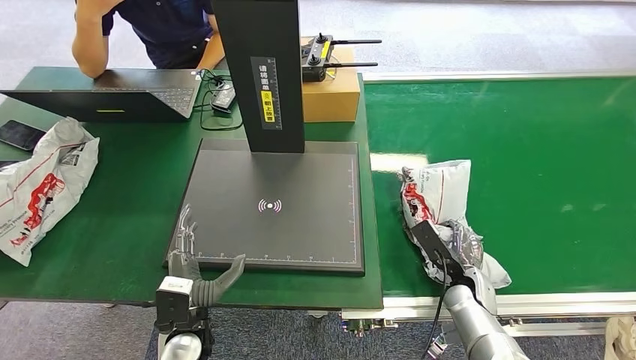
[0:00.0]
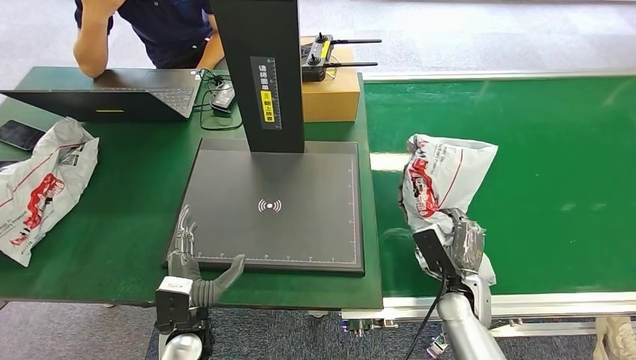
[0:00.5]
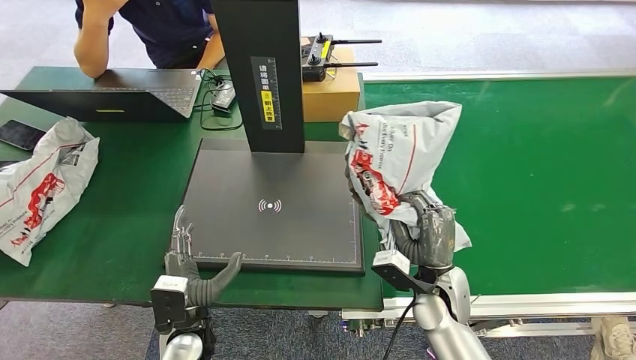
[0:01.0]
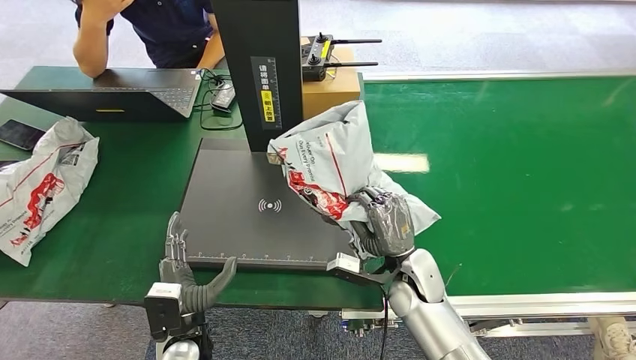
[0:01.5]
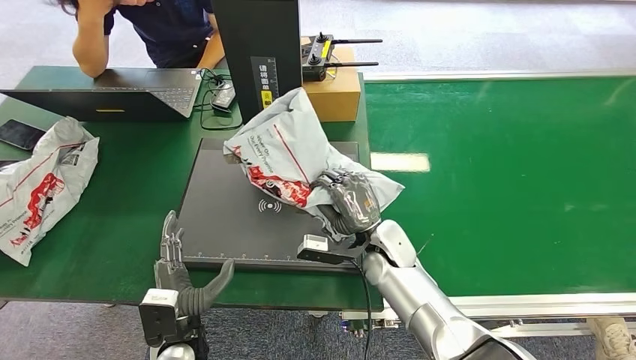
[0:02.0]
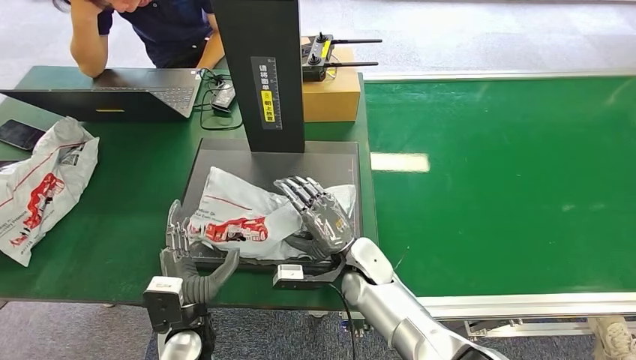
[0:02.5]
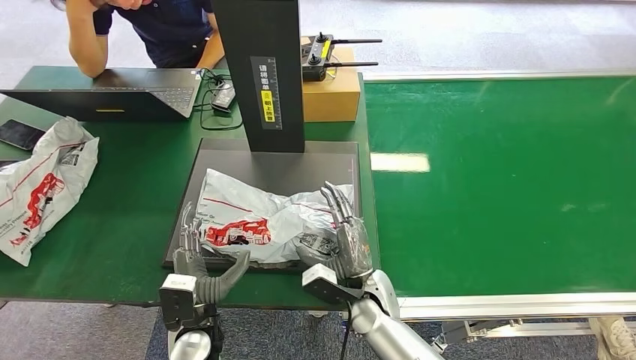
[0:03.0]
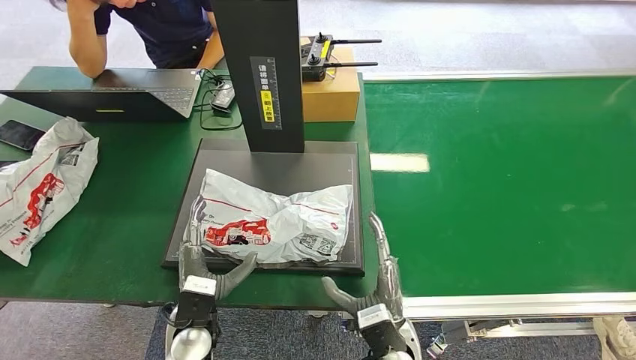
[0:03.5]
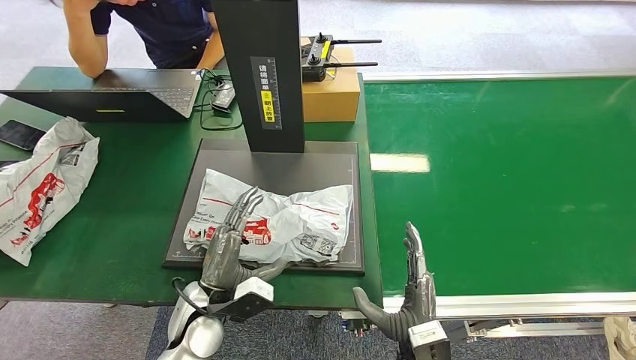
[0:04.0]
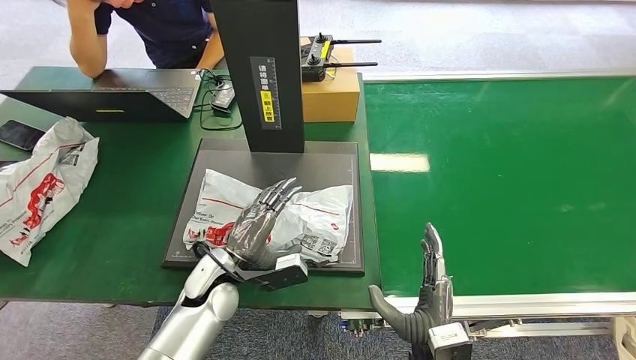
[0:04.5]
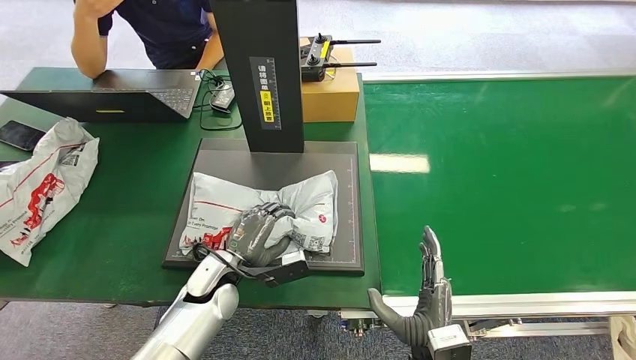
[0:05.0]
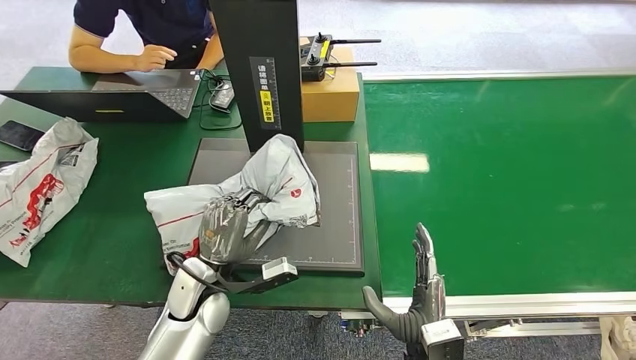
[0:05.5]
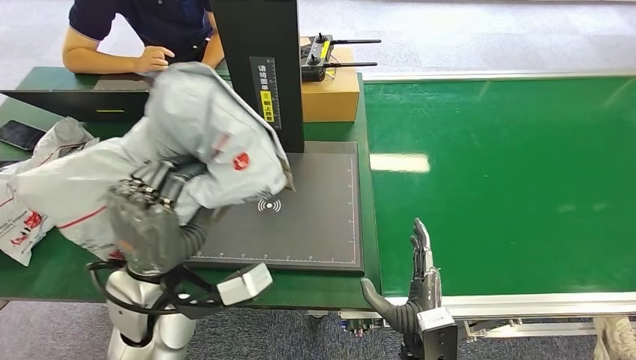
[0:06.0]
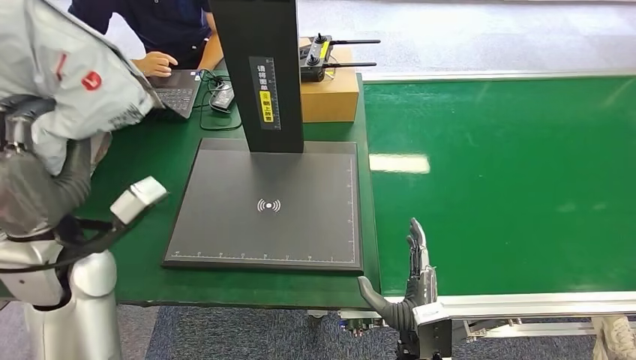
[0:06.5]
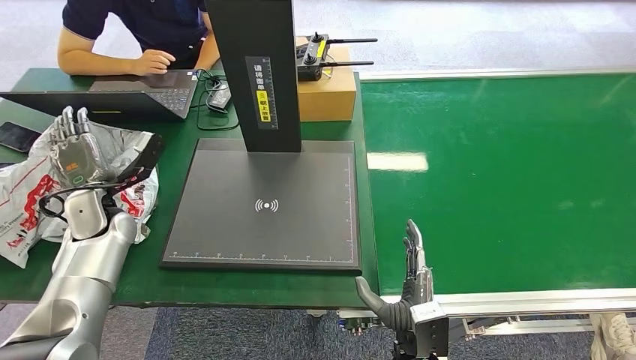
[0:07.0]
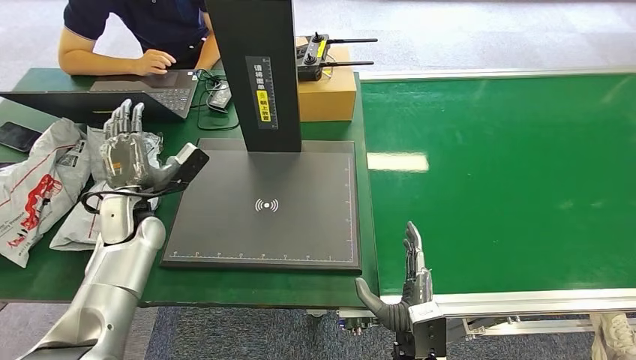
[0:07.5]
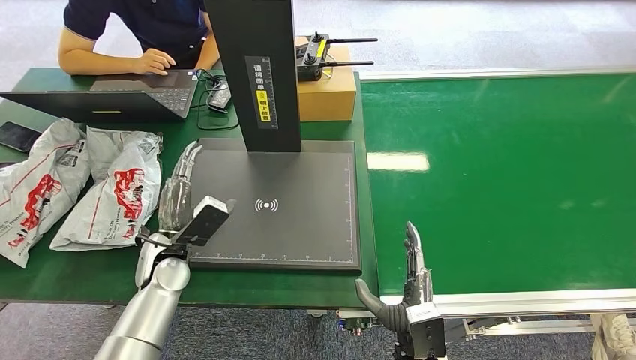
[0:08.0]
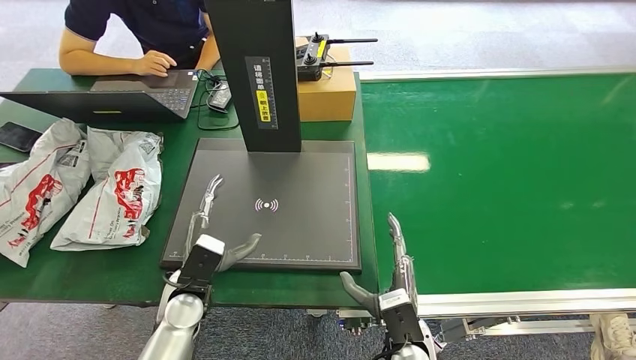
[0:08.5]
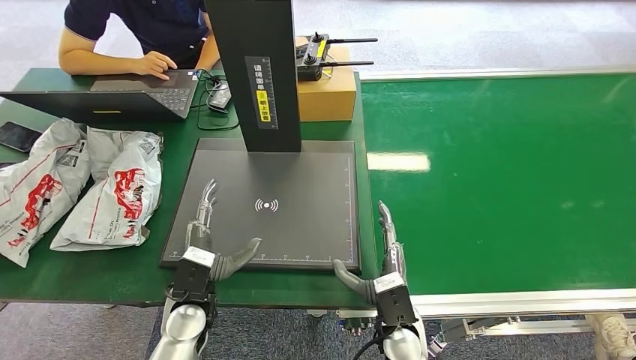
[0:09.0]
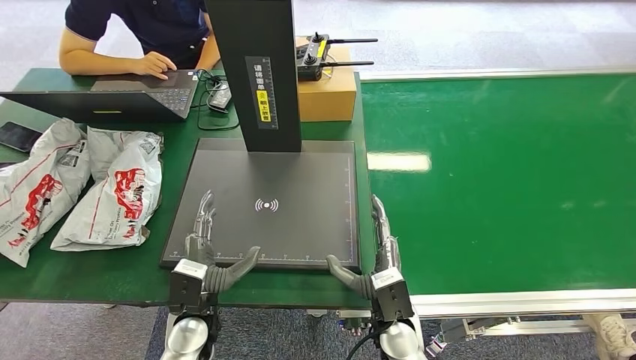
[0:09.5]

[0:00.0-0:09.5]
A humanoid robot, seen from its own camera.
Step, 0:01.5 to 0:03.5: Place the package onto the inbound machine.
Step, 0:04.0 to 0:06.0: Pick up the package from the inbound machine.
Step, 0:06.5 to 0:09.5: Place the package into the parcel locker.
0:00.0 to 0:02.0: The right hand moves to the left and upward, approximately 20 cm.
0:02.0 to 0:04.0: The left hand goes approximately 5 cm forward; the right hand is displaced backward by approximately 20 cm.
0:07.5 to 0:09.5: The left hand moves backward, to the right and downward, some 25 cm. Meanwhile the right hand goes some 5 cm forward.
